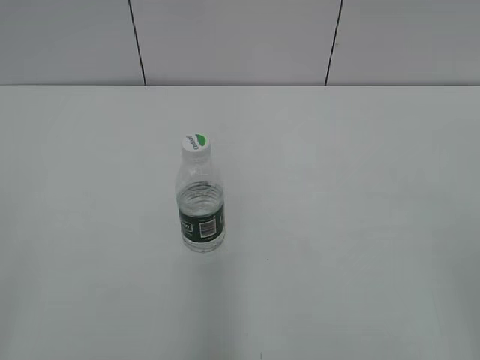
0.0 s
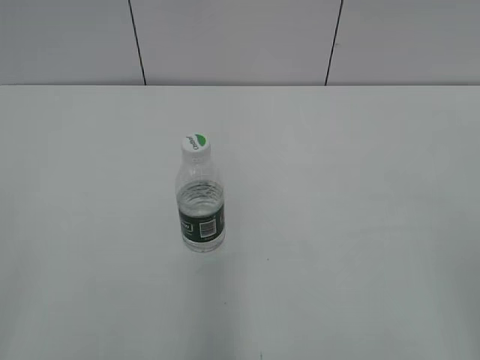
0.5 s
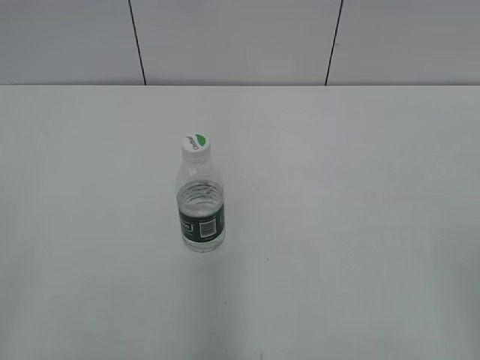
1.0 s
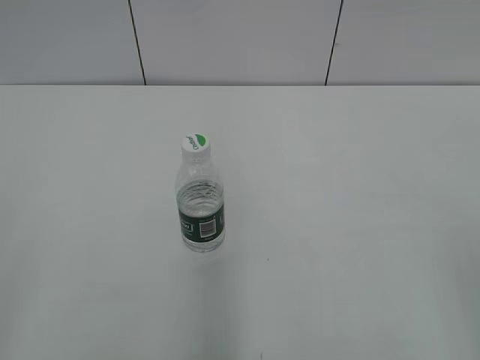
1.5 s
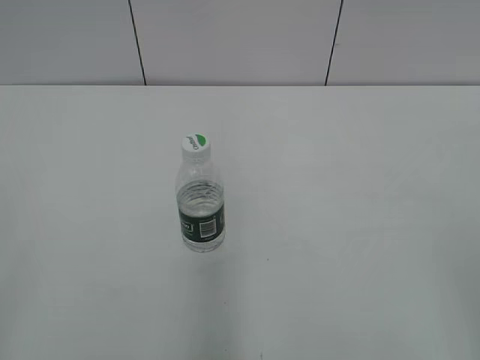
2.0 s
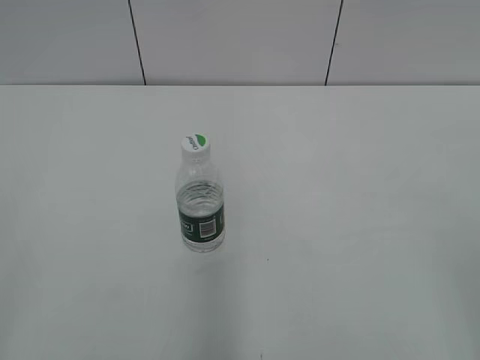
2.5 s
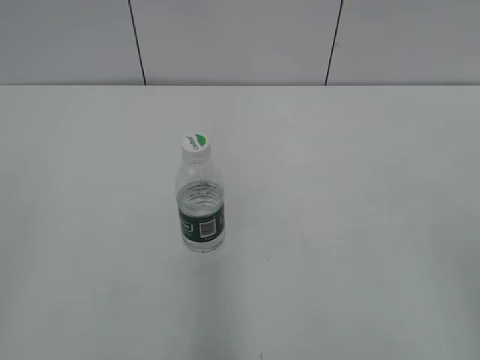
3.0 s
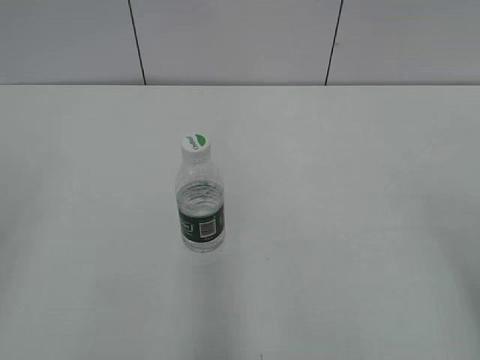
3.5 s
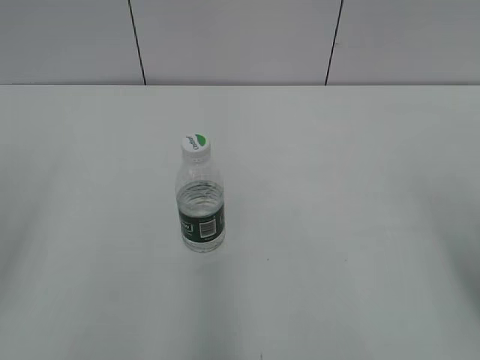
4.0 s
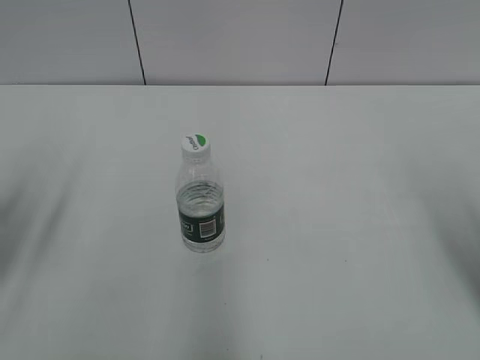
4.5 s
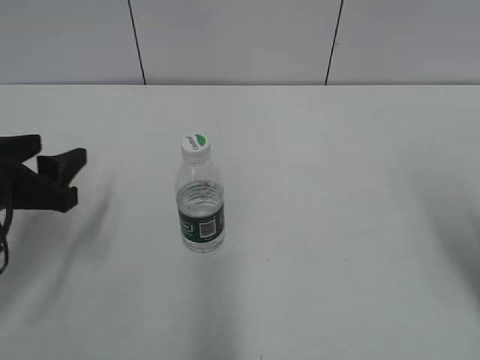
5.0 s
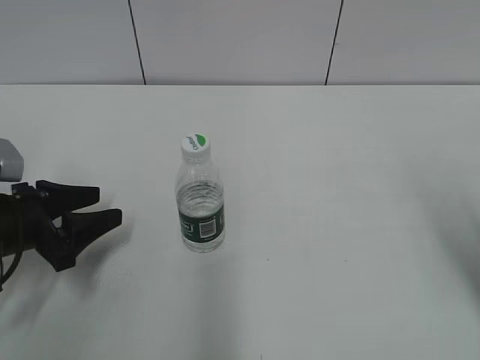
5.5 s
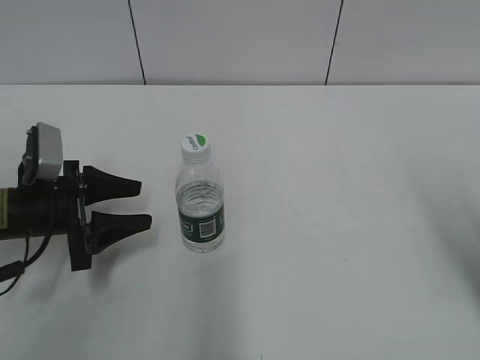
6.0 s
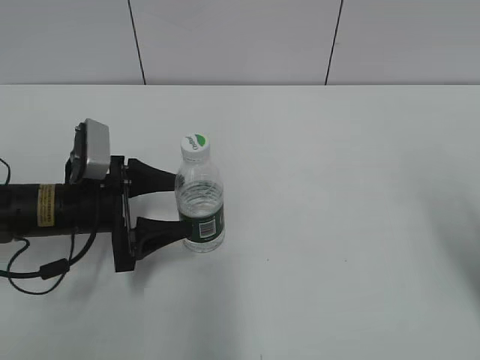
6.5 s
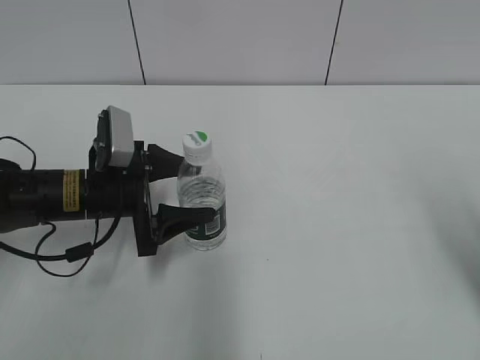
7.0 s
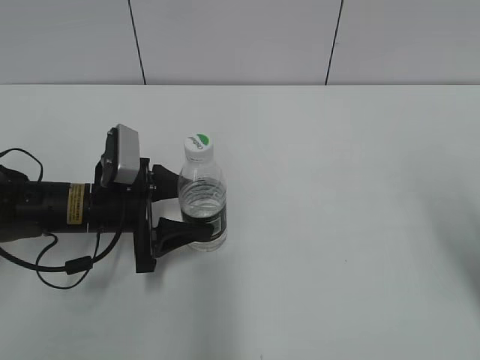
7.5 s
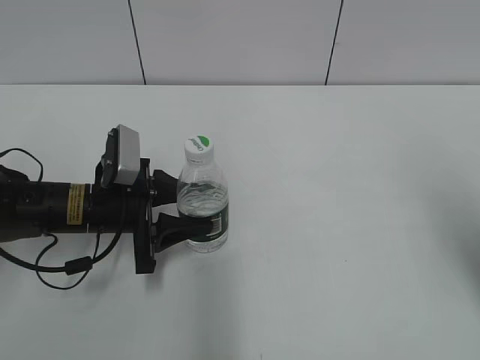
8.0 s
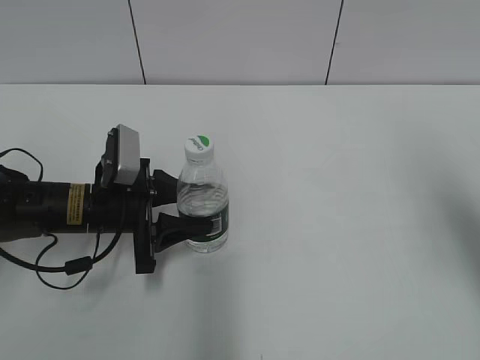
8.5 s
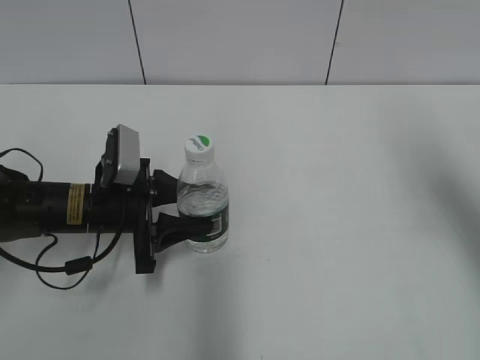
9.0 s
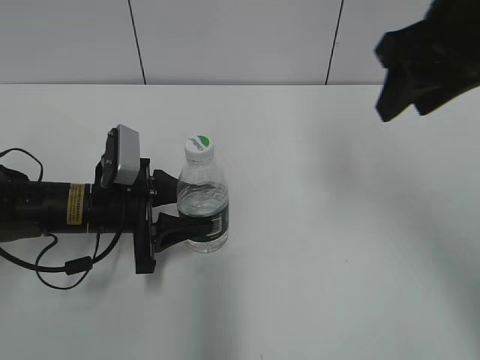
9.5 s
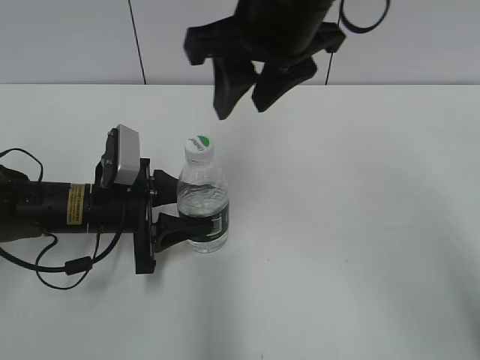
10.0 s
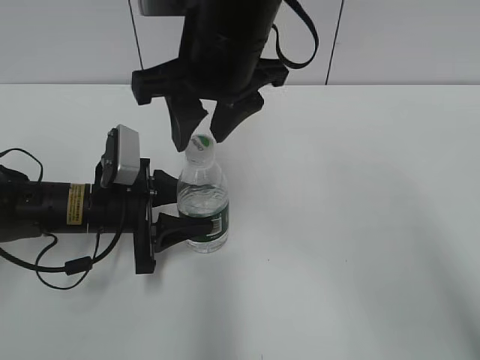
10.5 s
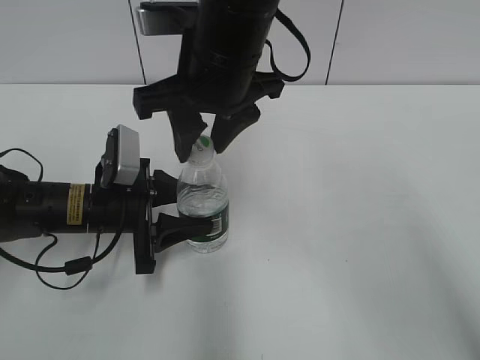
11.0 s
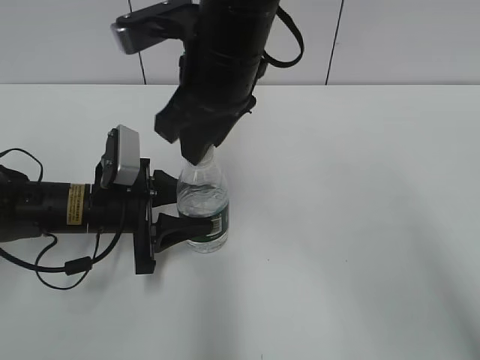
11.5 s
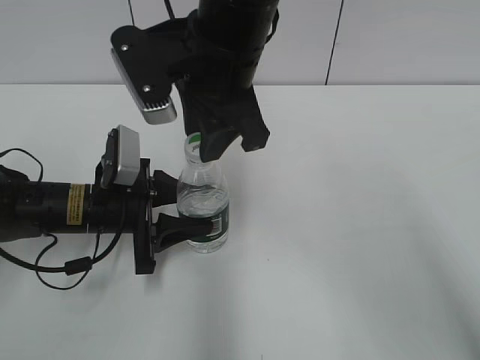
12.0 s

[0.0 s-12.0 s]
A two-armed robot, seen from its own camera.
Step, 0.0 to 8.0 s: Grasp the bottle and move it to the center of the table with the left gripper.
4.0 to 6.0 s: The left gripper moves downward and forward, some 25 cm.
6.0 to 8.0 s: The left gripper is displaced to the right by roughly 5 cm, and opens and closes again.
8.0 to 10.0 s: The right gripper is displaced to the left and forward by approximately 30 cm.
10.0 to 12.0 s: The right gripper shifts by approximately 5 cm.

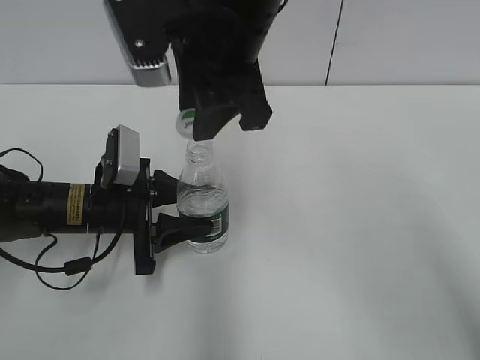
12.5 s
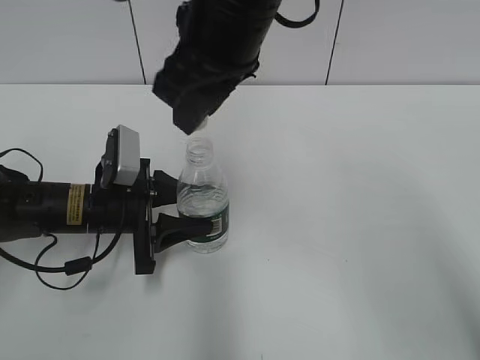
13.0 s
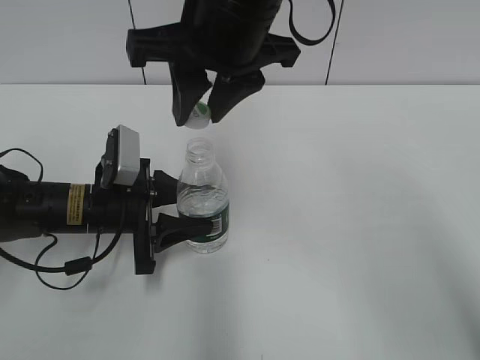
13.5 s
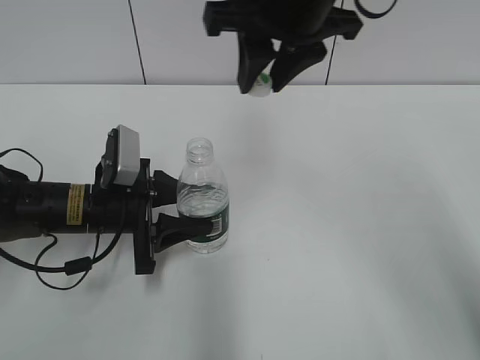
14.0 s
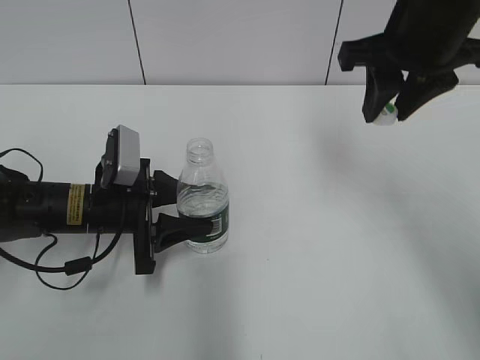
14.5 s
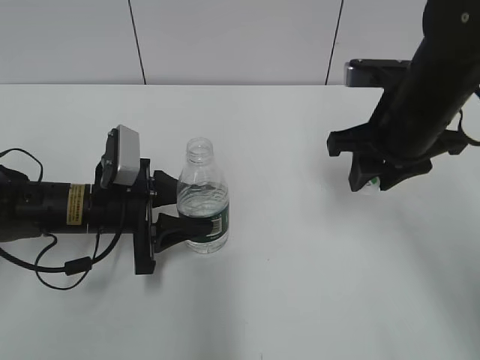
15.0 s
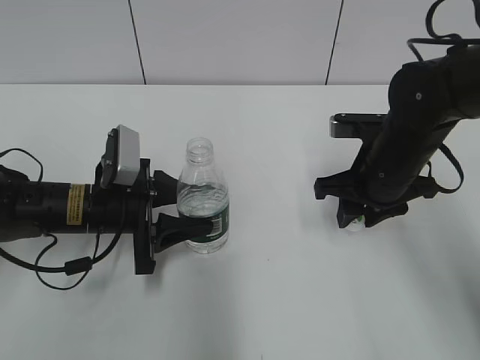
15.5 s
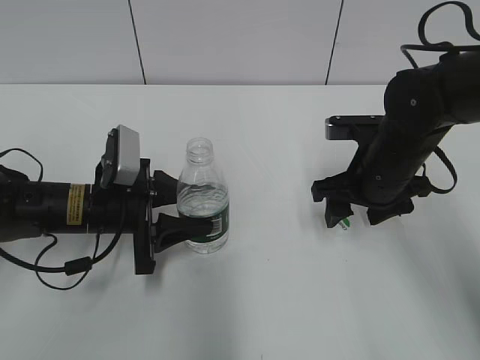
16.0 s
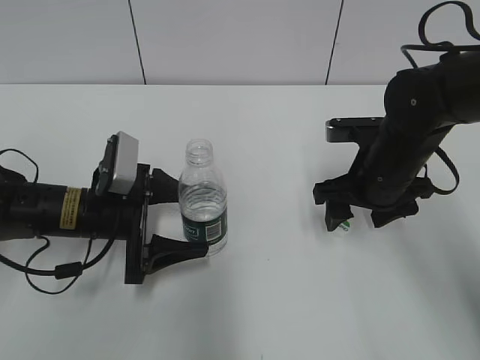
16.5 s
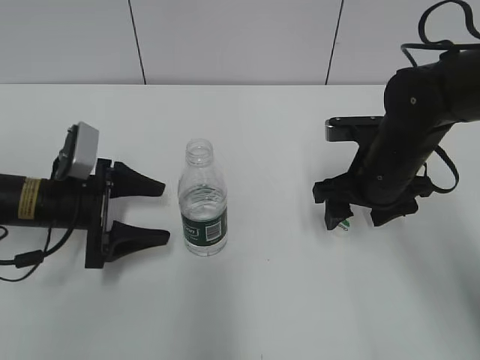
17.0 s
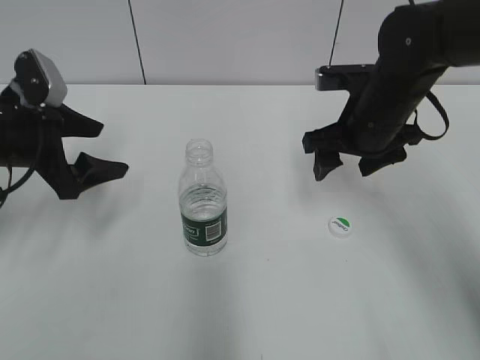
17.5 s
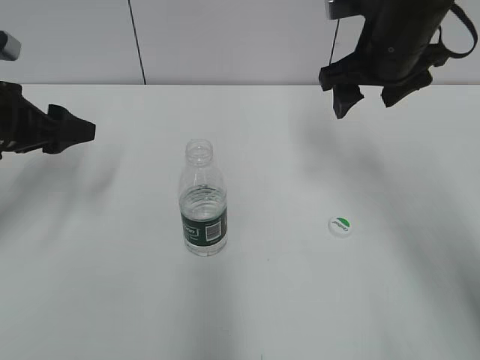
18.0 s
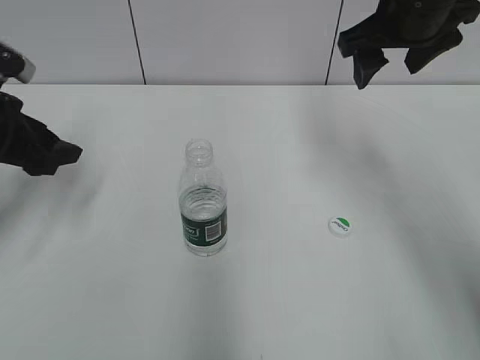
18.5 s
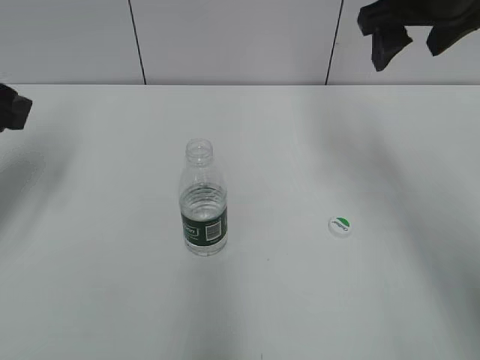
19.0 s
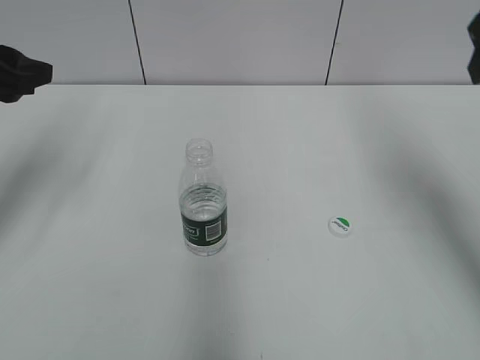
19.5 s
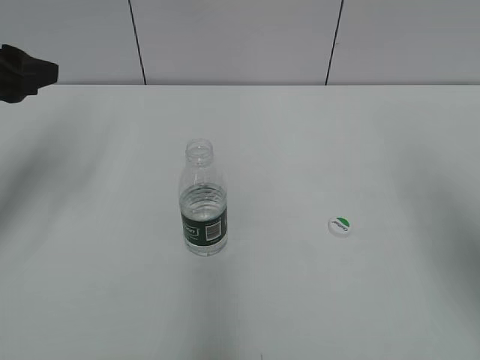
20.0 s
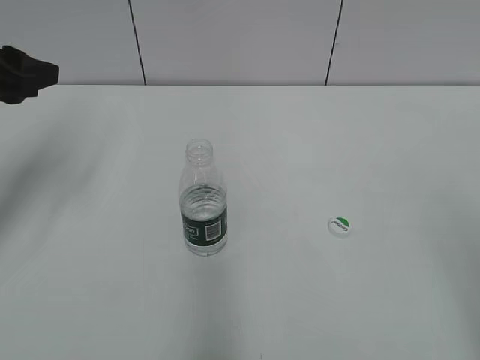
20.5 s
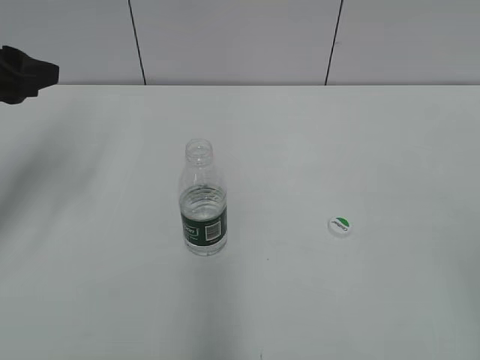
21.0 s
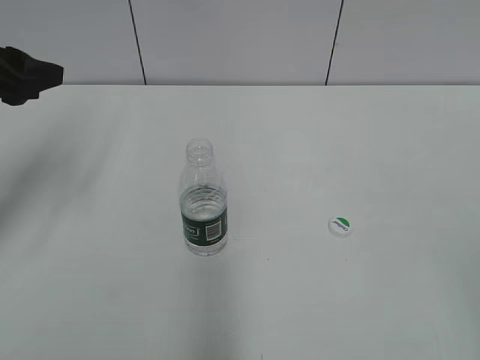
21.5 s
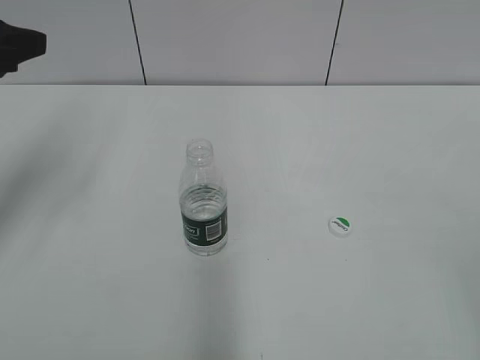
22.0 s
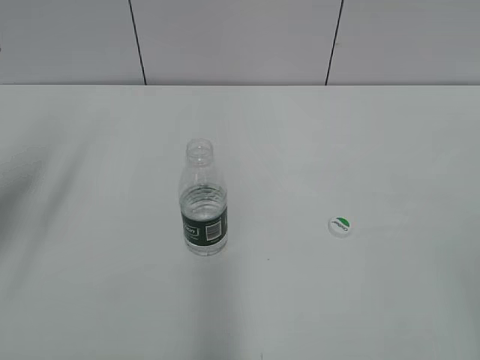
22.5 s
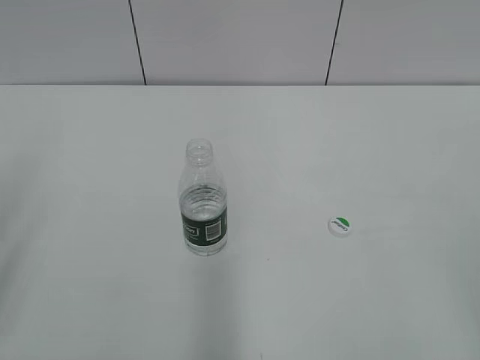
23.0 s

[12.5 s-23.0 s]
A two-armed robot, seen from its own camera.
Step, 13.0 to 16.0 s: Place the bottle cap on the table with the right gripper.
Step, 16.5 to 17.0 s: Place the bottle on the table with the left gripper.
12.5 to 14.5 s: The right gripper shifts some 15 cm to the right.
14.5 to 16.5 s: The left gripper opens its fingers. Meanwhile the right gripper travels downward by some 15 cm, and opens up.
16.5 to 19.0 s: The left gripper moves upward and to the left, approximately 20 cm, and closes, while the right gripper is displaced upward by some 20 cm.
19.0 to 21.0 s: The right gripper is displaced backward by about 35 cm.
21.0 to 23.0 s: The left gripper goes roughly 20 cm backward.

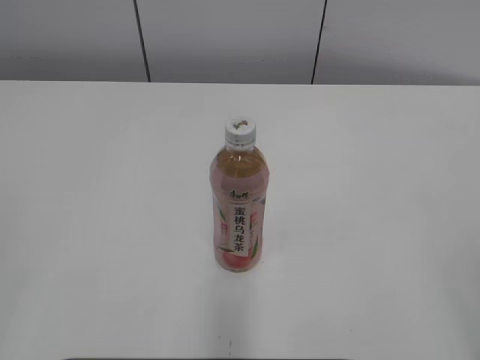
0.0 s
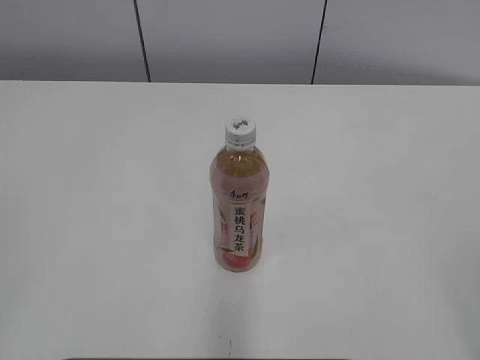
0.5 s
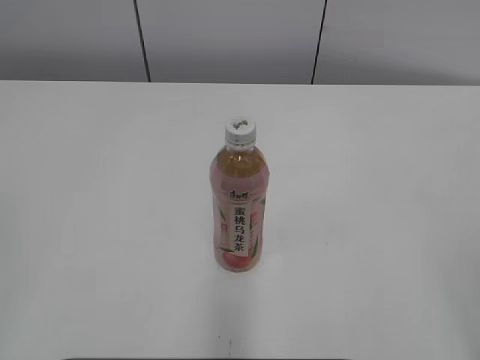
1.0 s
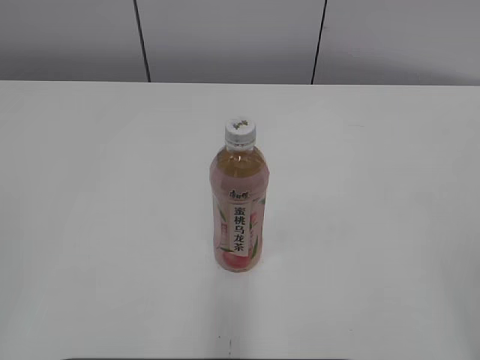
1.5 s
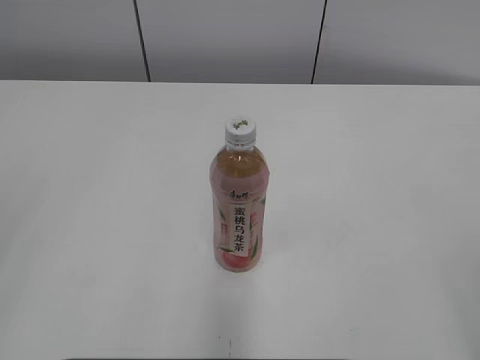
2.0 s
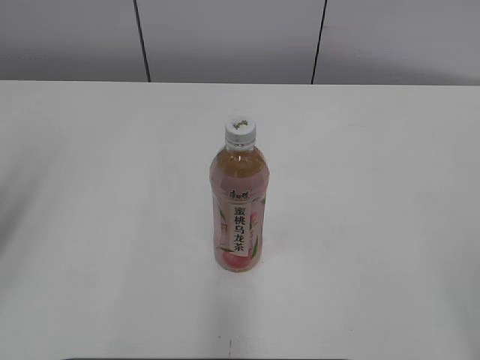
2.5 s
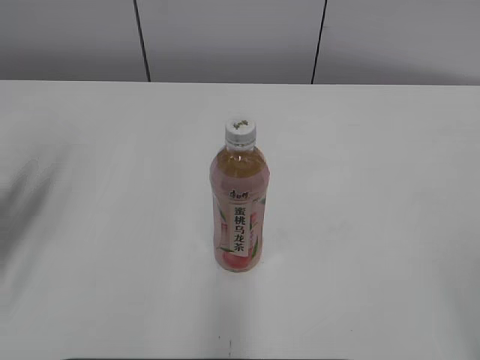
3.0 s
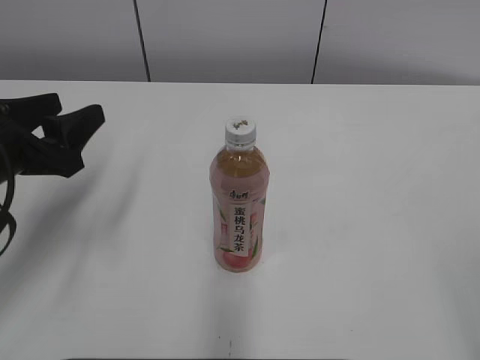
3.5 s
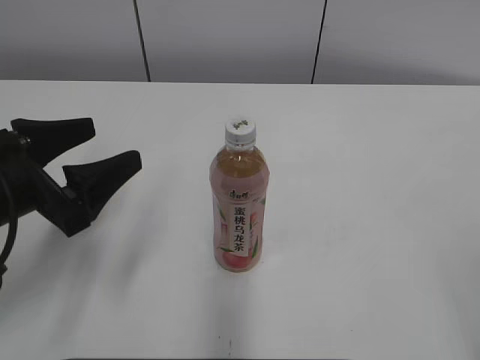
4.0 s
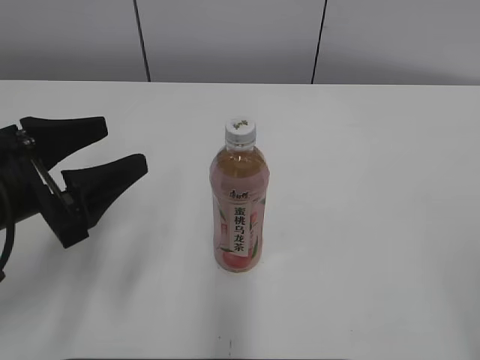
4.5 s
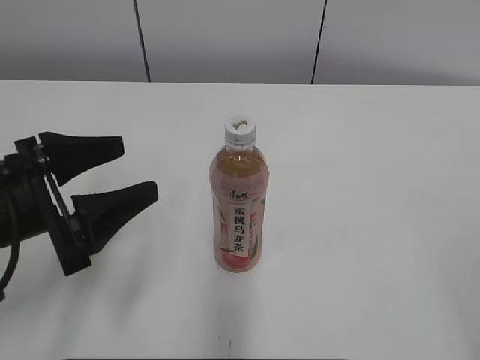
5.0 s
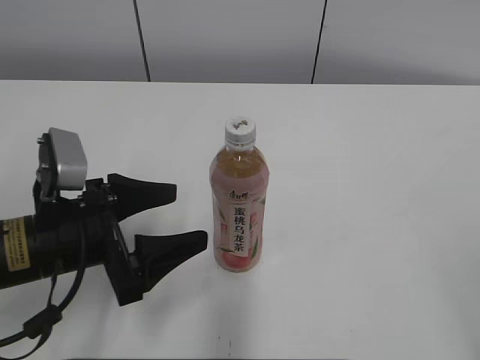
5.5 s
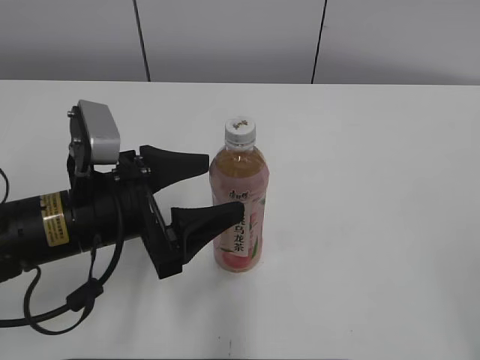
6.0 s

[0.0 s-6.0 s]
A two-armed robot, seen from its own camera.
2.0 to 4.0 s: The left gripper is displaced forward, downward and to the right by roughly 25 cm, and opens up.
4.0 to 6.0 s: The left gripper travels to the right by roughly 10 cm.
